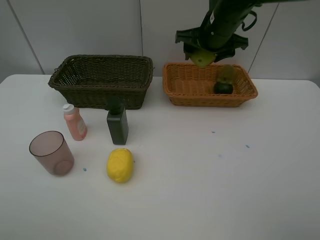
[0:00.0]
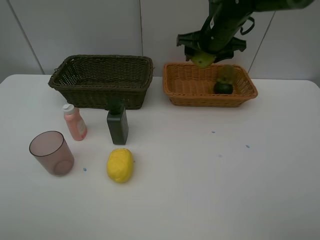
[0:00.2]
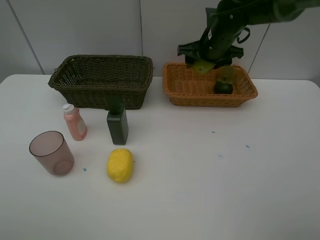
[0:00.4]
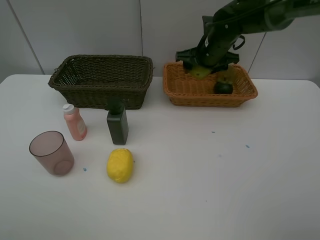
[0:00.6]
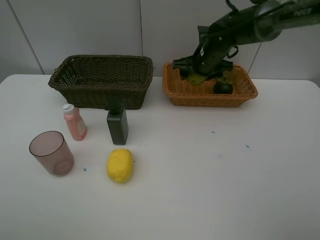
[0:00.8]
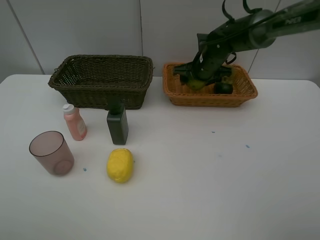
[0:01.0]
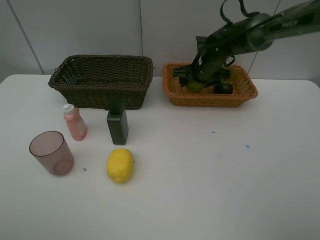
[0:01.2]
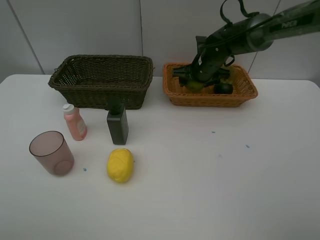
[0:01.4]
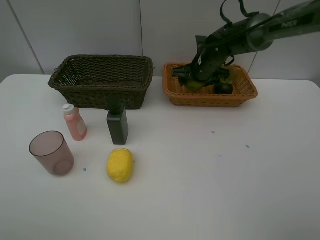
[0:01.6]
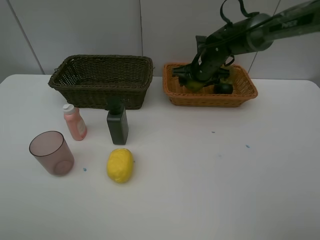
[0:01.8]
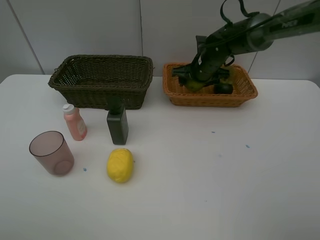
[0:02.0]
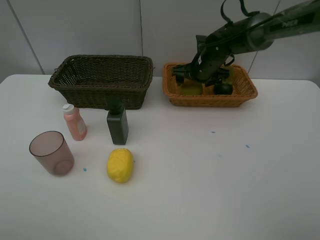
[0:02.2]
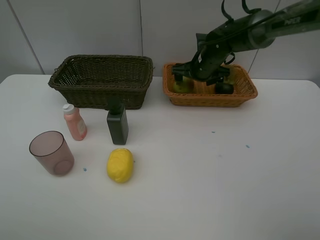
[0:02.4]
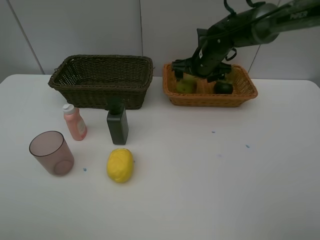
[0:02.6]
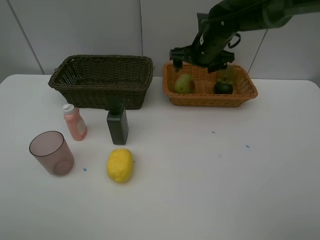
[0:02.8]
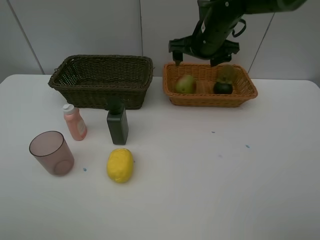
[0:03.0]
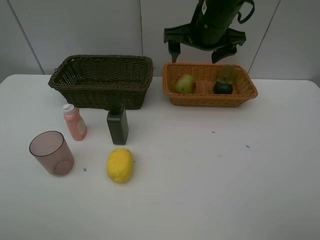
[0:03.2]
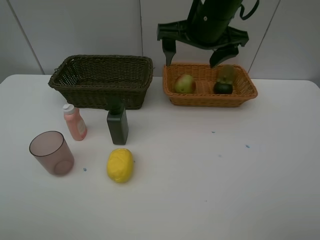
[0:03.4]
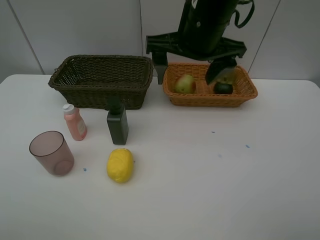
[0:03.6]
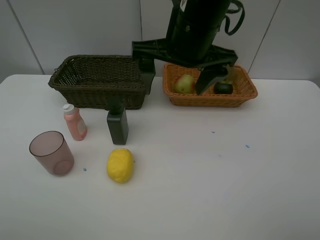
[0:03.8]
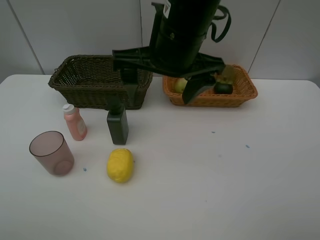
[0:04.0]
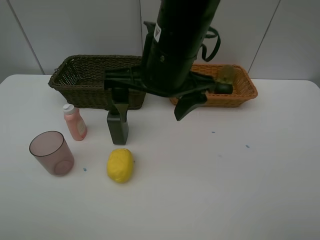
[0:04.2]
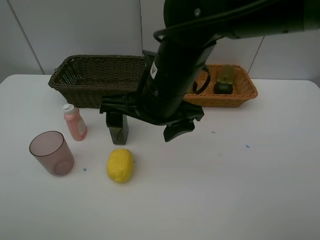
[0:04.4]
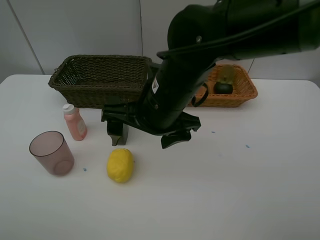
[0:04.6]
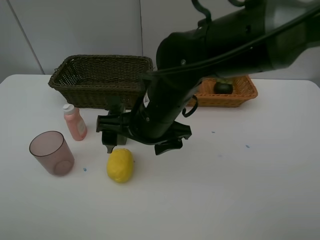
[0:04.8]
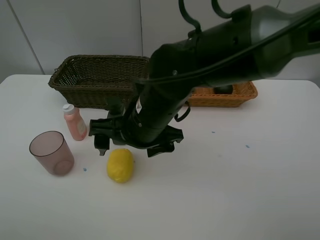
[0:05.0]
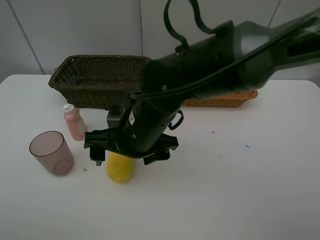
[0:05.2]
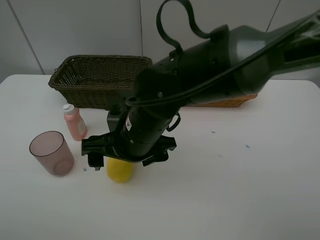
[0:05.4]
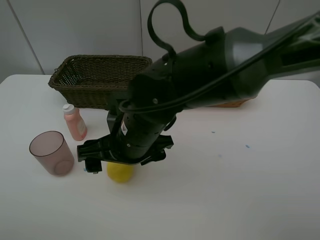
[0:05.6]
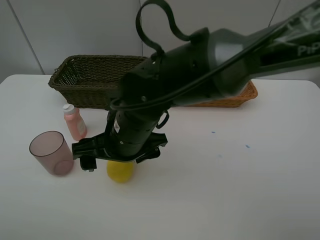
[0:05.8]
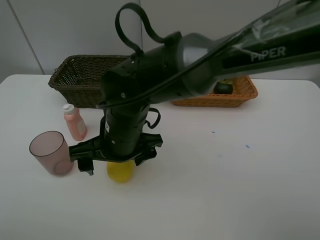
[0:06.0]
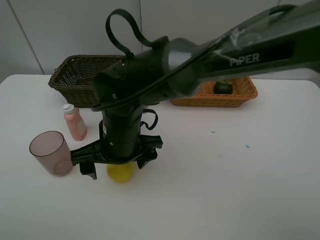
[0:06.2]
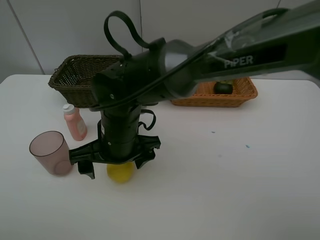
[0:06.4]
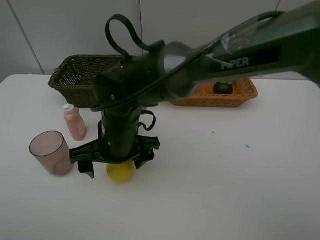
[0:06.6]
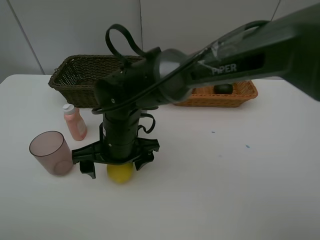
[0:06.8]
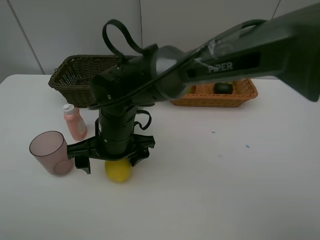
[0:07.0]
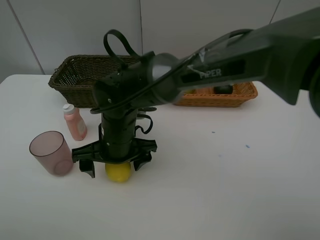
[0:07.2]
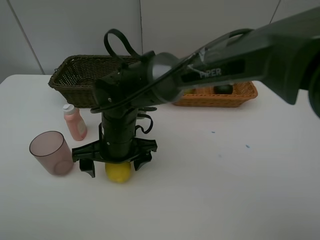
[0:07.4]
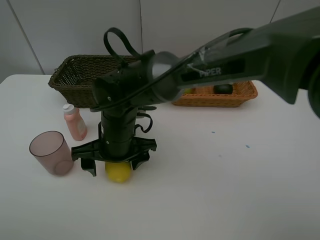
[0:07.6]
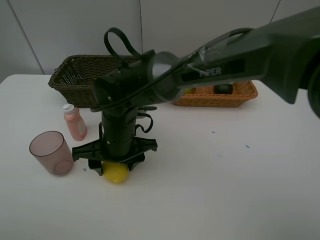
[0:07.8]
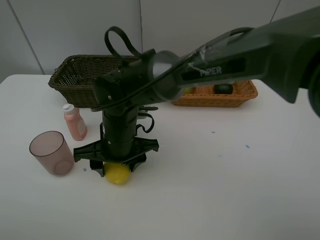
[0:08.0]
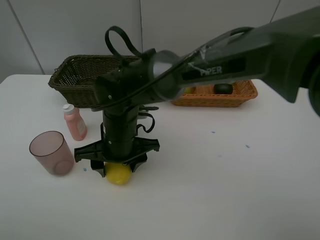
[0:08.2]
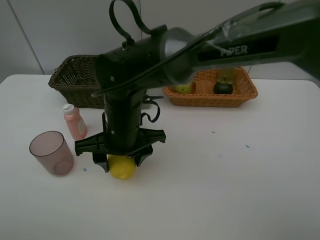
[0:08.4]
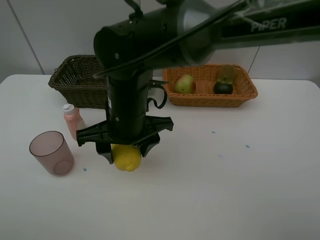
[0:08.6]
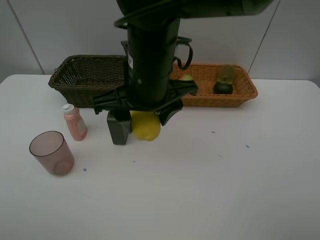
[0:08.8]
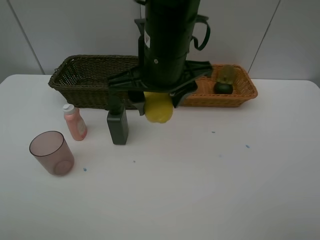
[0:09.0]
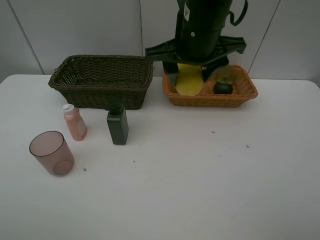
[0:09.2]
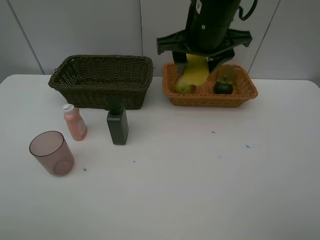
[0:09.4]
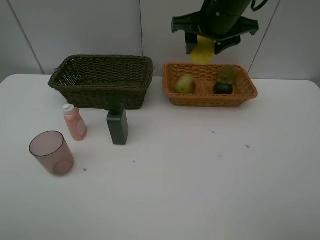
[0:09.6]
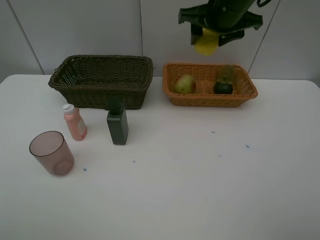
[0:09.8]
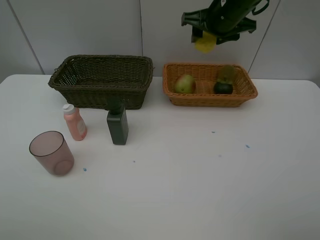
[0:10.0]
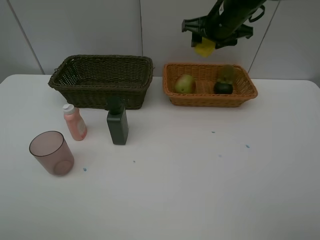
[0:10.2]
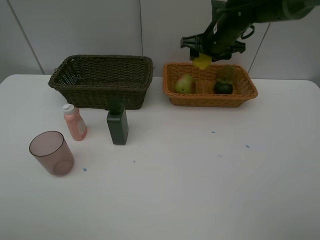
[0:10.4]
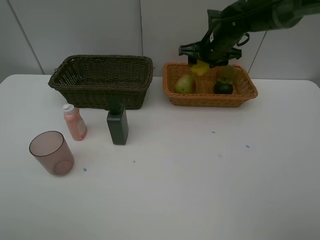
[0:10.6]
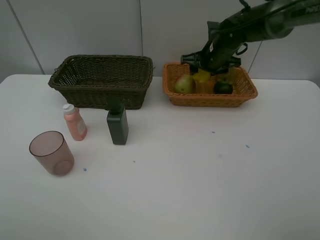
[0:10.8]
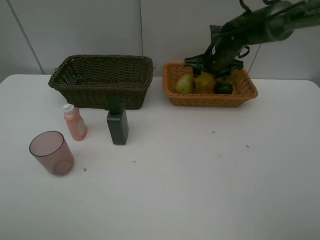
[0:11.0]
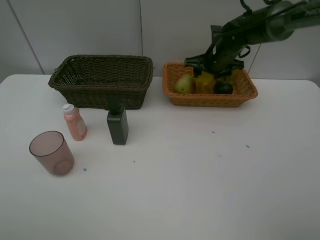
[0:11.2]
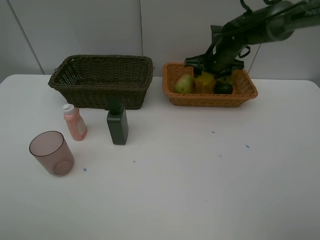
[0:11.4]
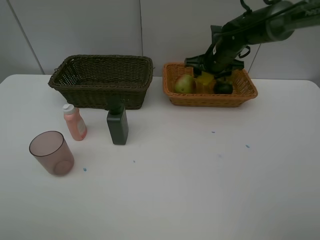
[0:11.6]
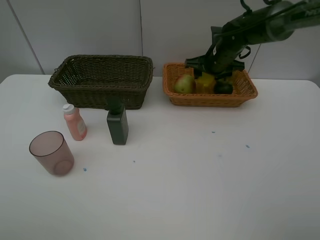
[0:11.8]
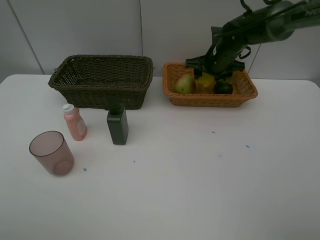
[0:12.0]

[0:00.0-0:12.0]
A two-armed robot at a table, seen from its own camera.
Task of the whole recording: Place multiple objects separately in different baskets.
Step, 0:00.0 to 0:03.0: Place the pear in the light basket with right gripper.
Step, 0:03.2 to 0:08.8: Pick up the lemon with right gripper.
0:00.0 to 0:01.6: The right gripper is displaced downward by approximately 10 cm.
0:01.6 to 0:03.0: The right gripper is displaced upward by approximately 10 cm.
0:03.0 to 0:04.4: The right gripper heads backward and to the left, covering approximately 20 cm.
0:04.4 to 0:06.0: The right gripper travels downward and to the left by about 10 cm.
0:06.0 to 0:07.6: The grippers move only a little.
0:07.6 to 0:09.0: The right gripper travels upward and to the right by approximately 20 cm.
0:09.0 to 0:10.4: The right gripper travels forward and to the right by about 25 cm.
0:10.4 to 0:12.0: The right gripper shifts approximately 5 cm downward.

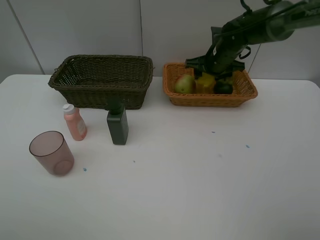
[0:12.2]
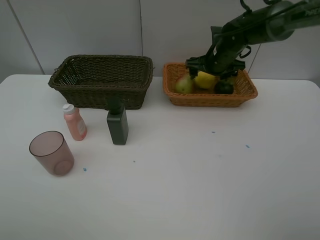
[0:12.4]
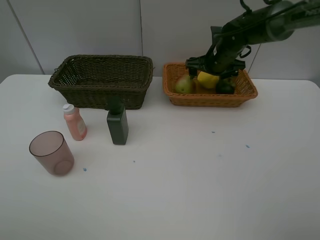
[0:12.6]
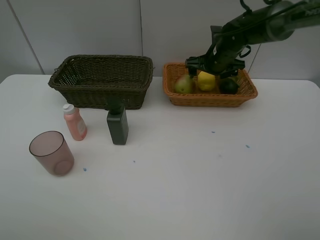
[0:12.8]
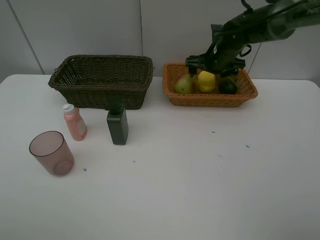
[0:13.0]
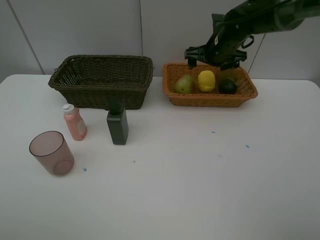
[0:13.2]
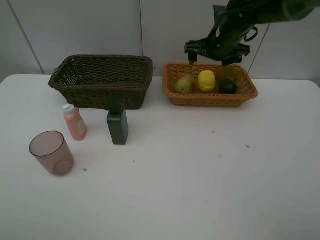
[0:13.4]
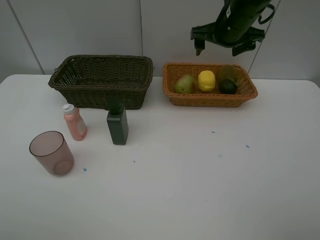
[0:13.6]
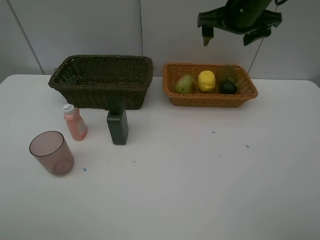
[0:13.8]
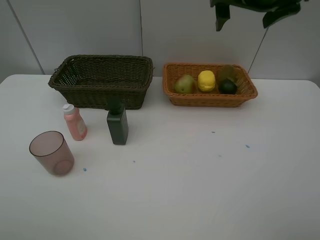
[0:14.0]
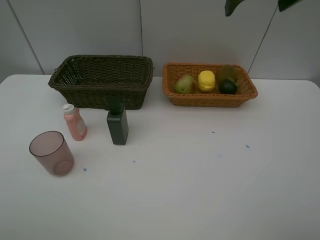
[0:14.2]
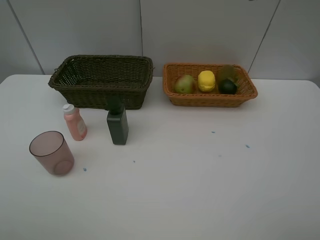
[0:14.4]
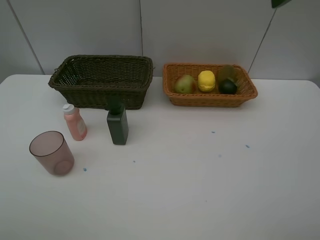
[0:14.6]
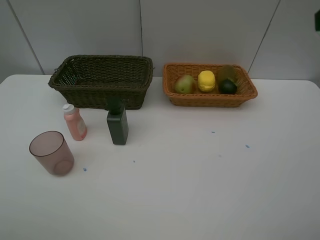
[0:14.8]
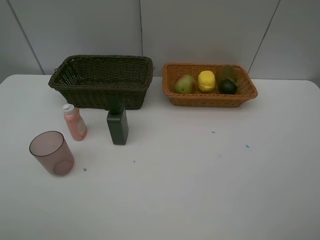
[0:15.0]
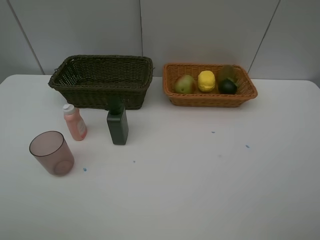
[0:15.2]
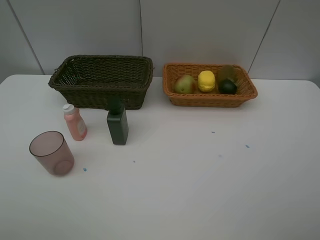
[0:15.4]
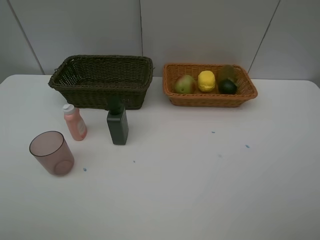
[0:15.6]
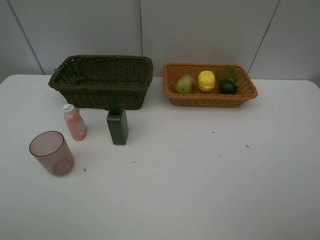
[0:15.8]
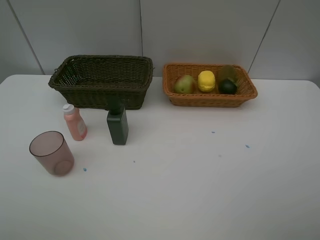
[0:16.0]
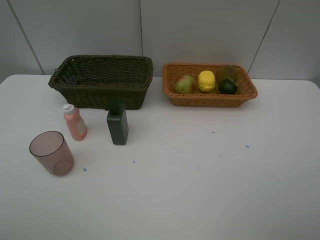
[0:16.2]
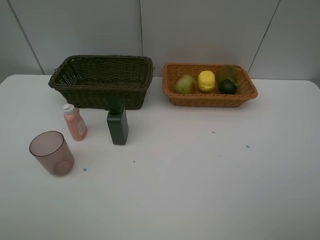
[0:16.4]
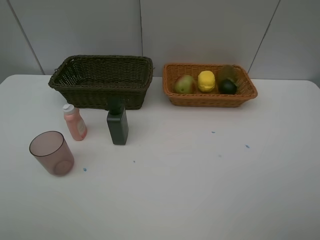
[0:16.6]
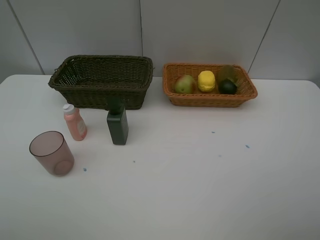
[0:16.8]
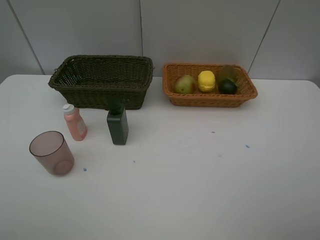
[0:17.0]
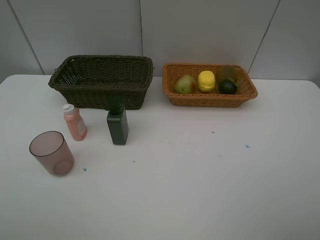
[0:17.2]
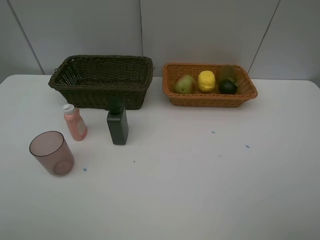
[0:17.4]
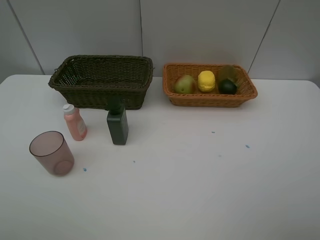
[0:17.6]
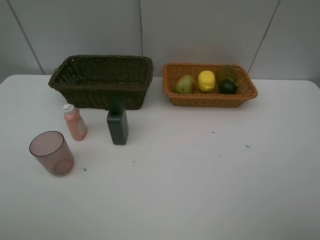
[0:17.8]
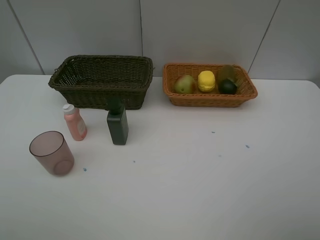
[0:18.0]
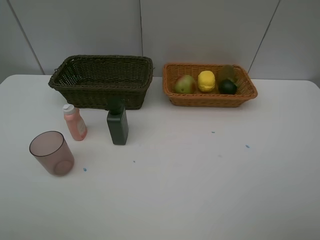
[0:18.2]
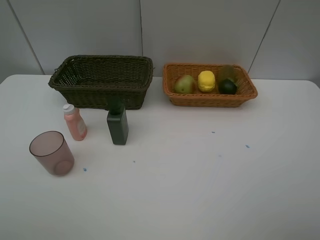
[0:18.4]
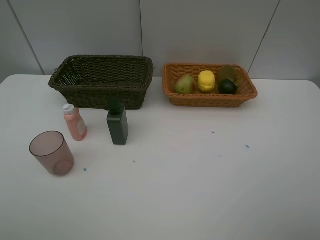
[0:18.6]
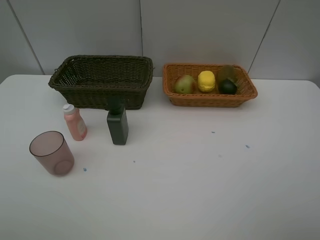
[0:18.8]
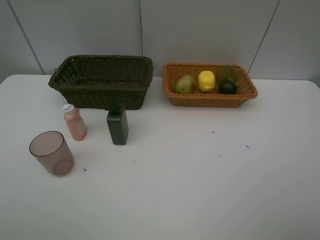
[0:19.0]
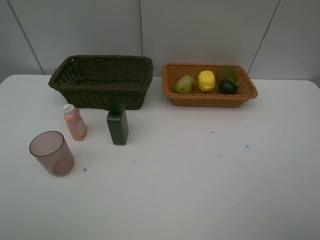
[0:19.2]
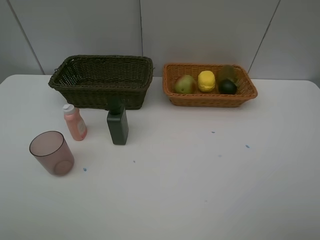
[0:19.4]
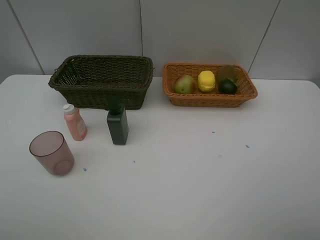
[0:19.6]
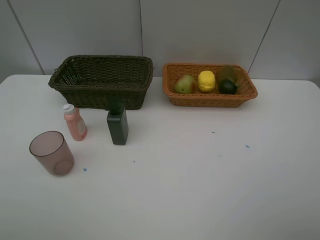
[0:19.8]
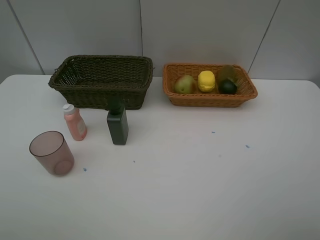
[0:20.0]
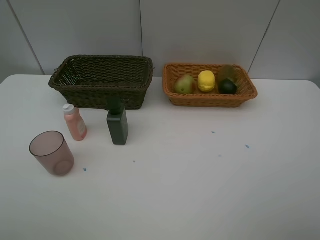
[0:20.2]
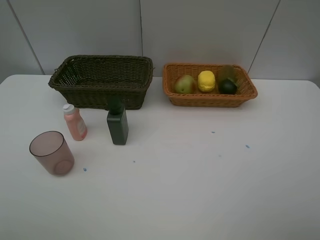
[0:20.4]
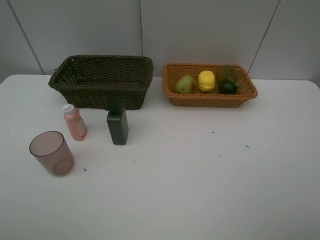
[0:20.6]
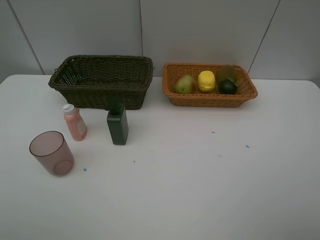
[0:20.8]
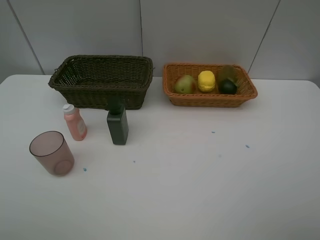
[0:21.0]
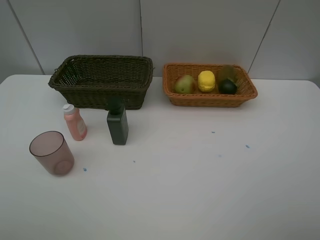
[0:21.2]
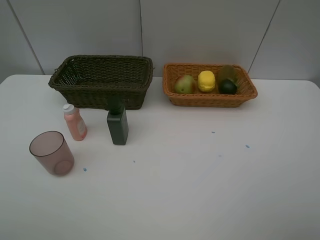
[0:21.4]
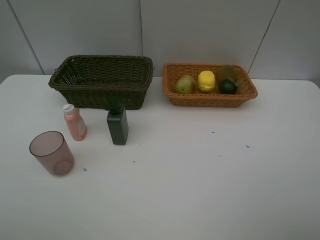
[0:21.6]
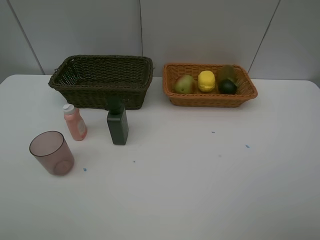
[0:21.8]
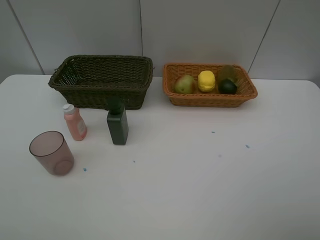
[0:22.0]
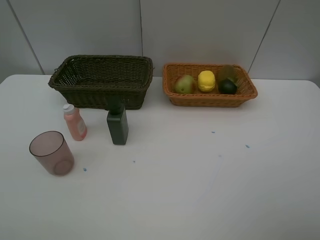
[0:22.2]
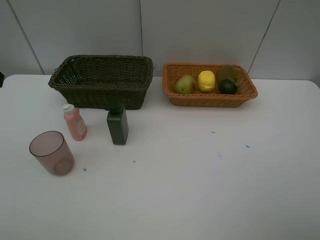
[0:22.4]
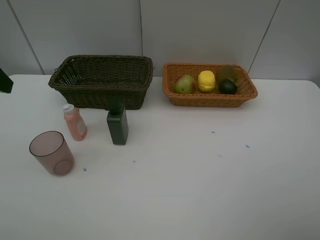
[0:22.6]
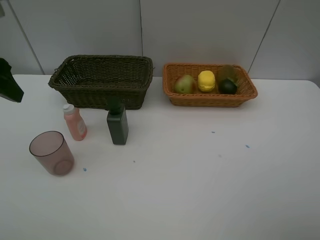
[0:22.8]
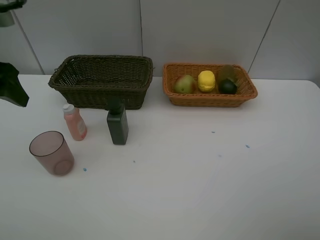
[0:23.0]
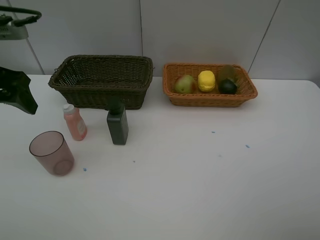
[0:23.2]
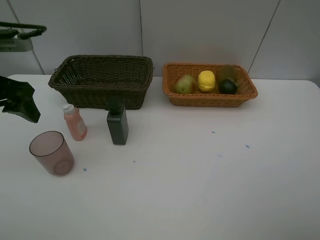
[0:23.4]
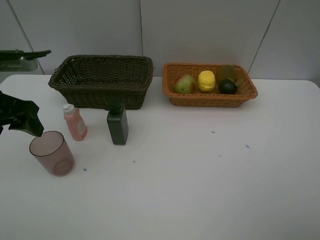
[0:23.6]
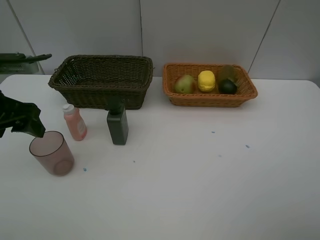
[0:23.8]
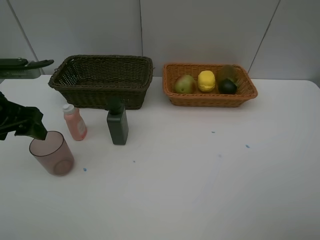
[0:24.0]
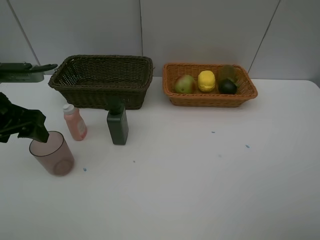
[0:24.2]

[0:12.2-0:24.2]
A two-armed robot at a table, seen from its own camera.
Task of the whole recording: Place multiple objects separately in different baskets.
0:12.2 to 0:13.8: The right gripper is displaced upward and backward by about 15 cm, and opens up.
0:13.8 to 0:15.2: The right gripper moves backward, some 30 cm.
0:18.2 to 0:21.2: The two grippers keep their place.
0:22.6 to 0:24.2: The left gripper goes approximately 10 cm downward.
